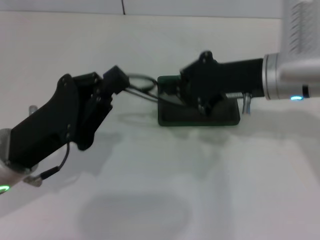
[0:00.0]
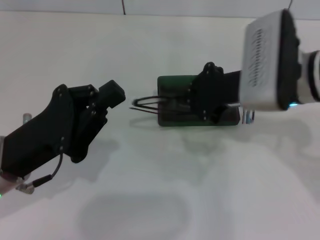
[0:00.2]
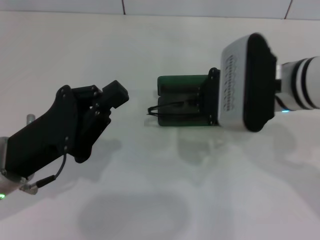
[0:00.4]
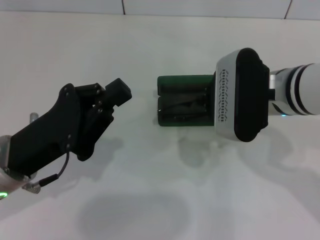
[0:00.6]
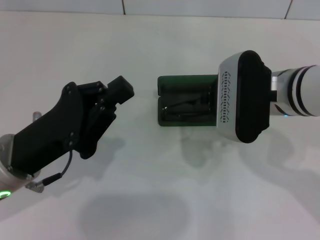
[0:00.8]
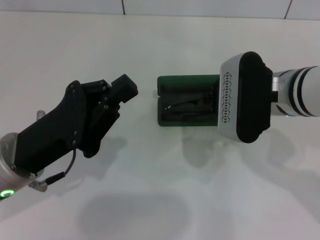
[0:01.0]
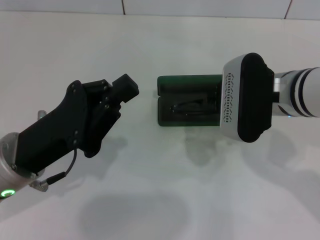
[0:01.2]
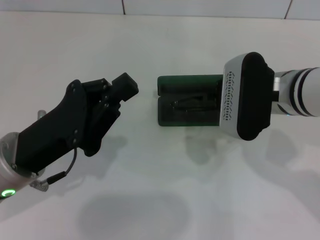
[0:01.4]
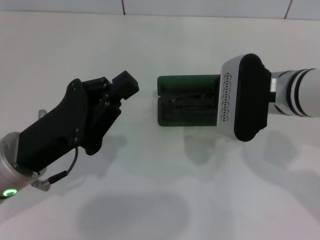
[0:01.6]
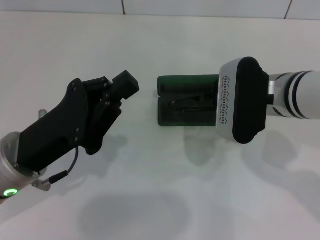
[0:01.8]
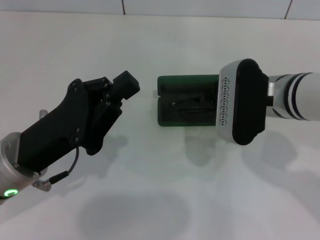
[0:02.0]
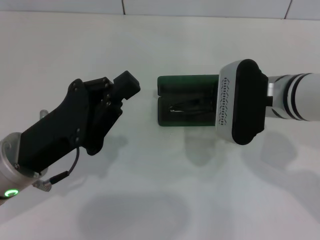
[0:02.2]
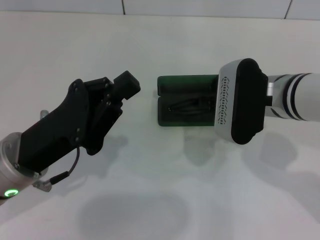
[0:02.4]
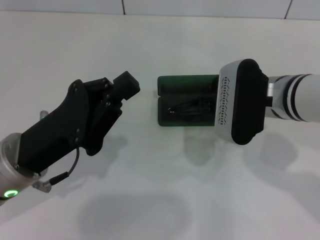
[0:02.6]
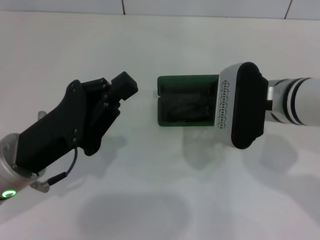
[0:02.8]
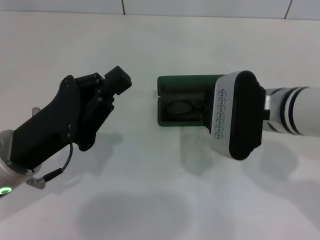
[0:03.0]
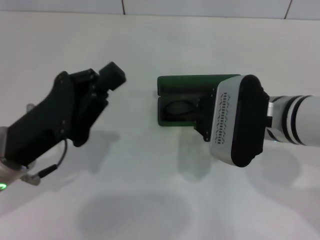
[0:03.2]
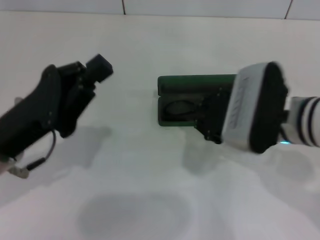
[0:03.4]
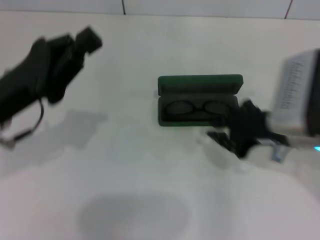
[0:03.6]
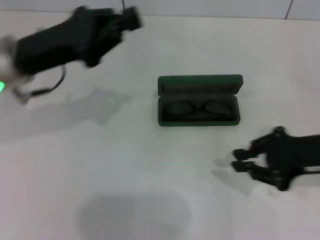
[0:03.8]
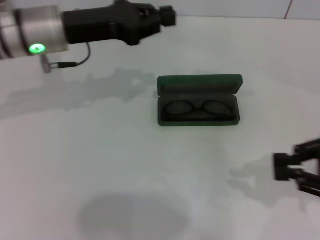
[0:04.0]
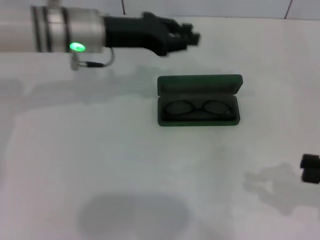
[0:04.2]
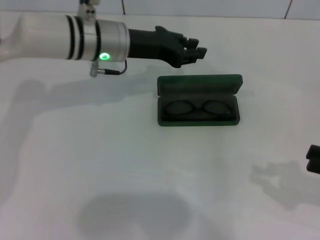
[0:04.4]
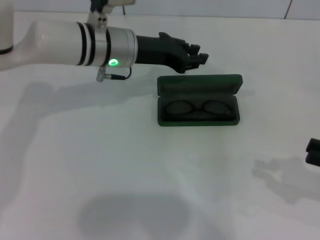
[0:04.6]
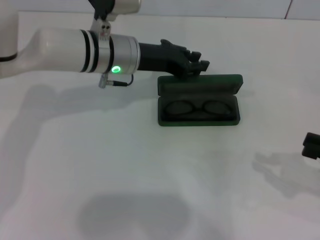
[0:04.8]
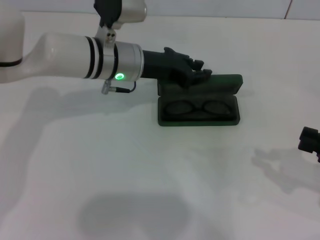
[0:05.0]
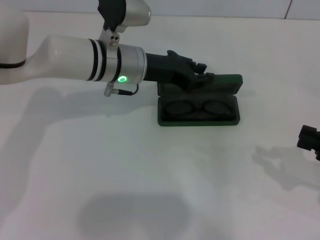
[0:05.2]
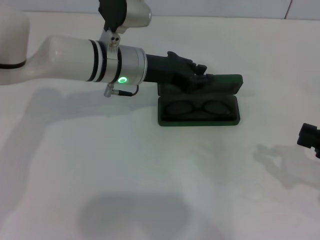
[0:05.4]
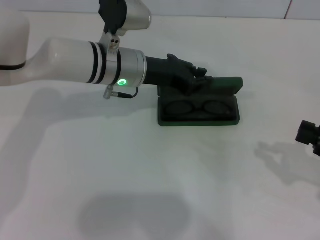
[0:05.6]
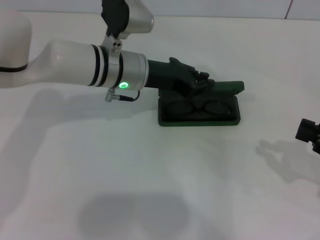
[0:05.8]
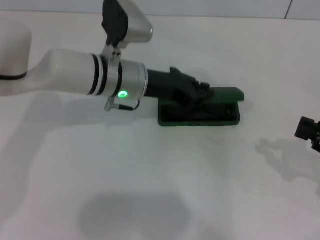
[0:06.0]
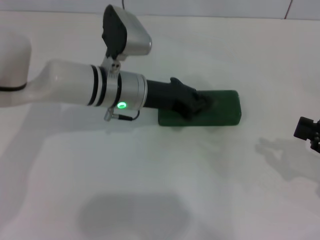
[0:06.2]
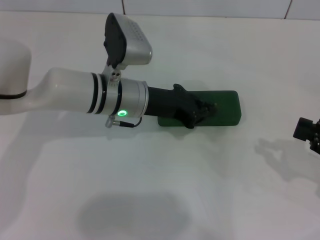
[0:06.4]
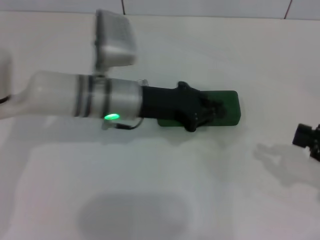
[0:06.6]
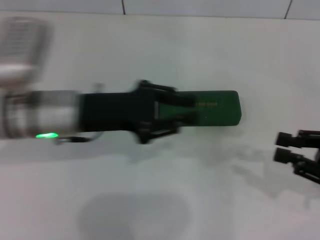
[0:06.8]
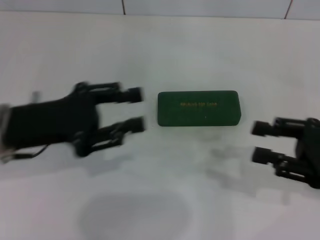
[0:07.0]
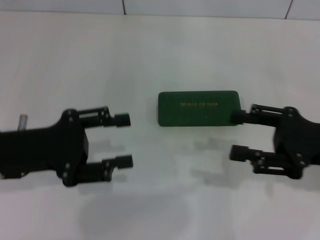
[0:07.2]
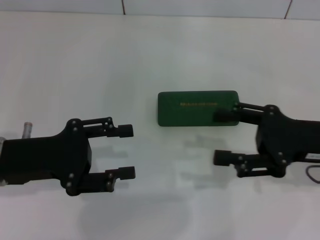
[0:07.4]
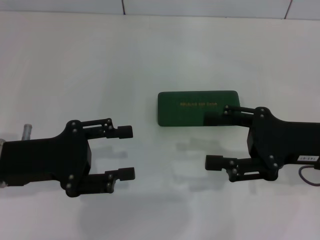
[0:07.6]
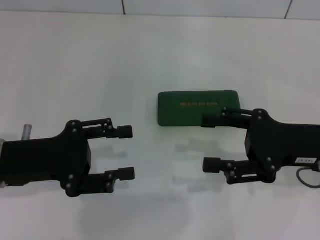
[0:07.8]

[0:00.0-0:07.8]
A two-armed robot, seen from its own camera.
Step, 0:00.0 to 0:02.4: Put the glasses into the case with your right hand.
Step, 0:02.6 to 0:06.2: Close the glasses case with your left hand.
0:01.6 to 0:03.2: There are only small adjustments of the grippers.
0:03.2 to 0:04.6: The left gripper is displaced forward and to the right by some 20 cm, while the right gripper moves to the right, some 25 cm.
0:04.6 to 0:06.2: The left gripper moves some 5 cm.
0:06.2 to 0:07.8: The left gripper heads to the left and backward, covering some 20 cm, and opens its fingers. Meanwhile the right gripper travels to the left by about 10 cm, and opens up.
